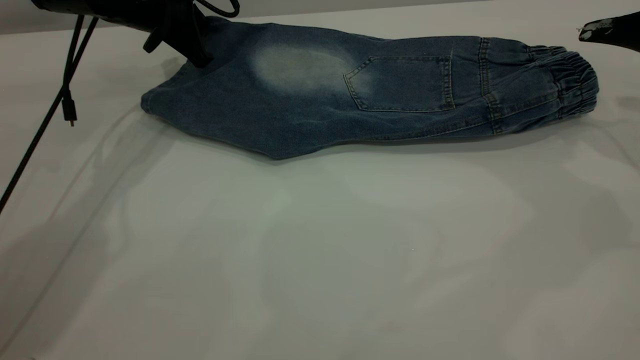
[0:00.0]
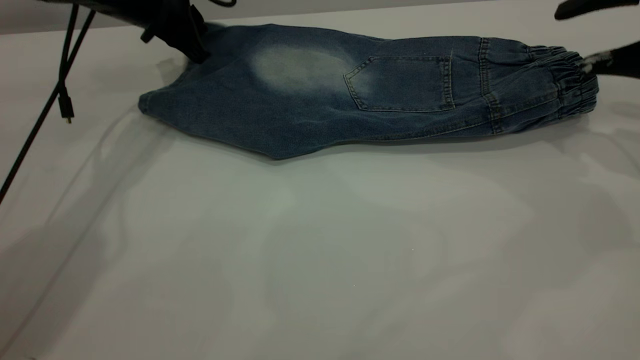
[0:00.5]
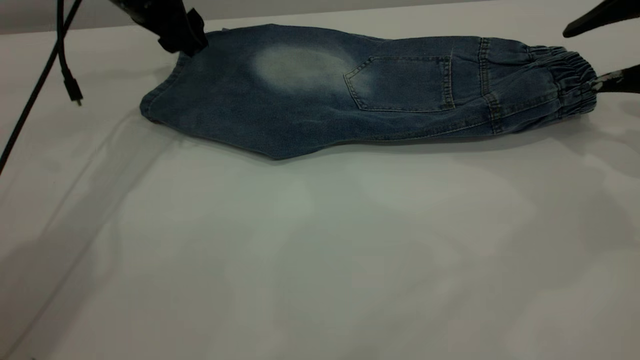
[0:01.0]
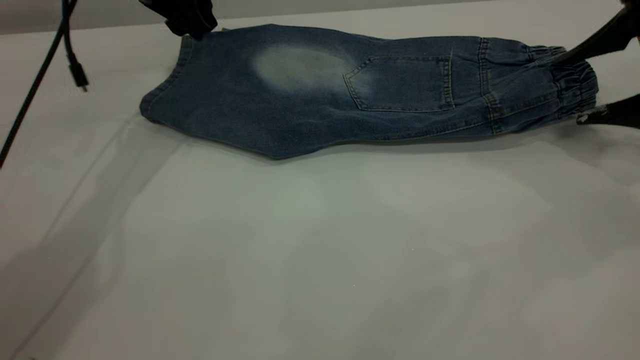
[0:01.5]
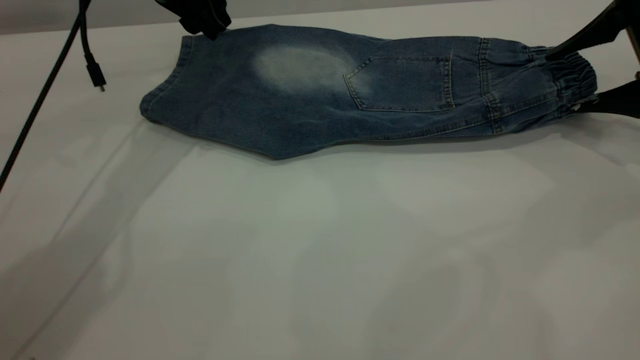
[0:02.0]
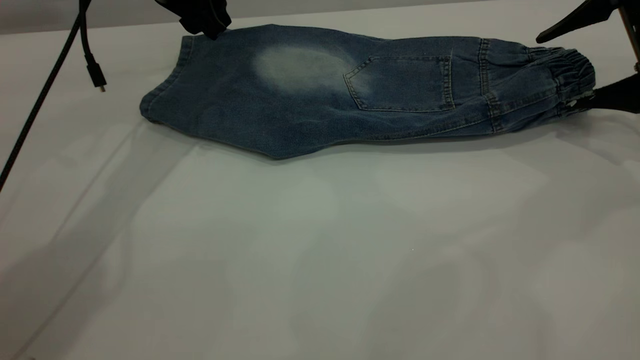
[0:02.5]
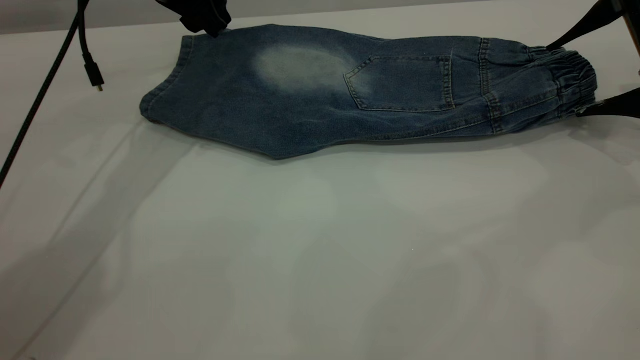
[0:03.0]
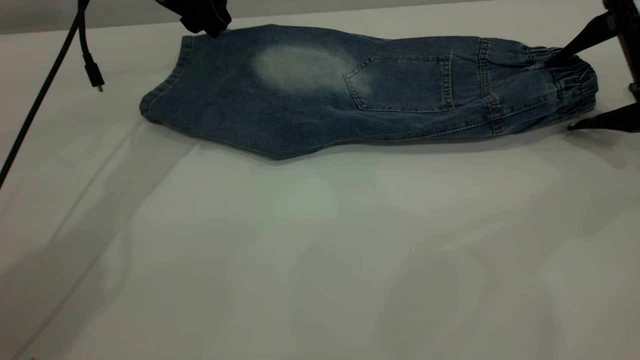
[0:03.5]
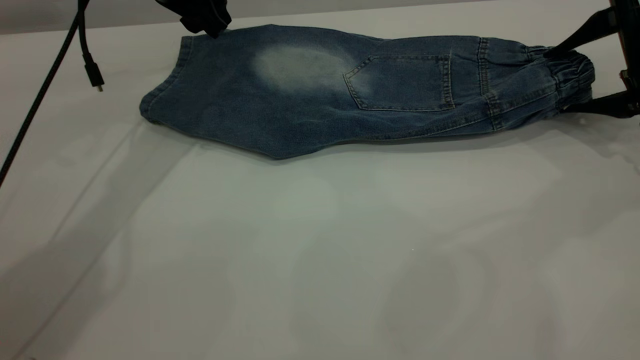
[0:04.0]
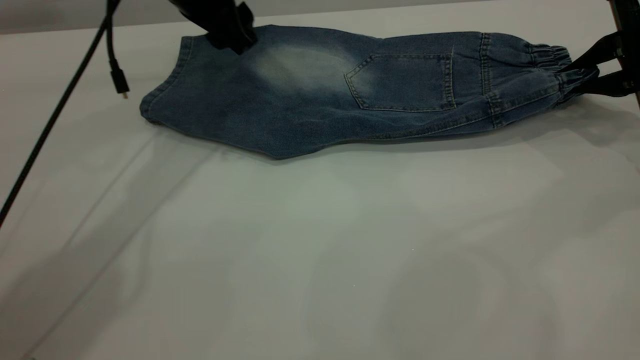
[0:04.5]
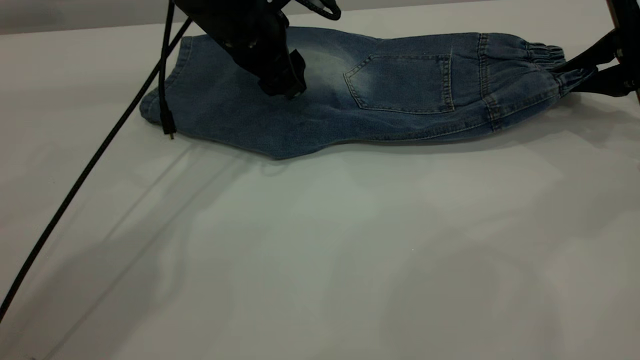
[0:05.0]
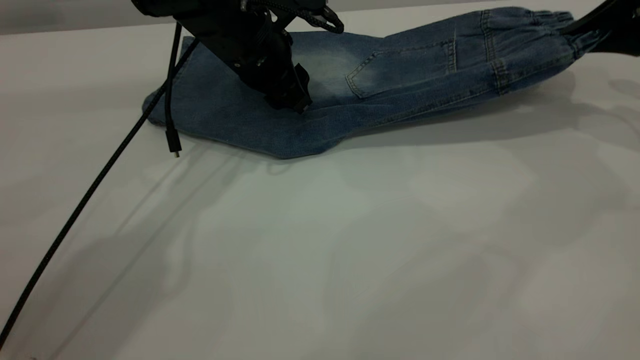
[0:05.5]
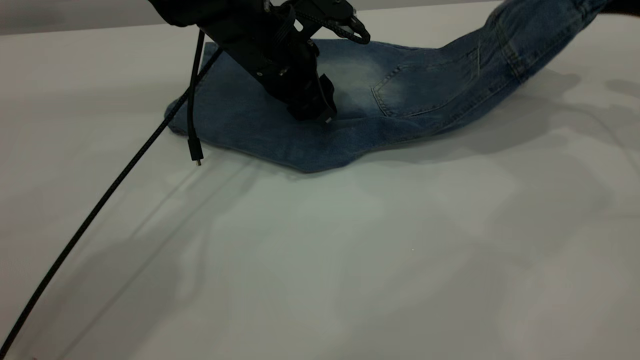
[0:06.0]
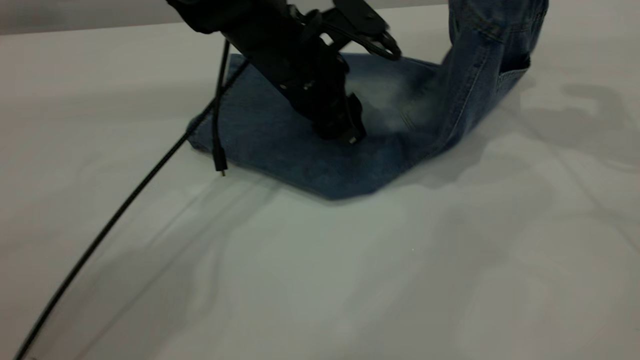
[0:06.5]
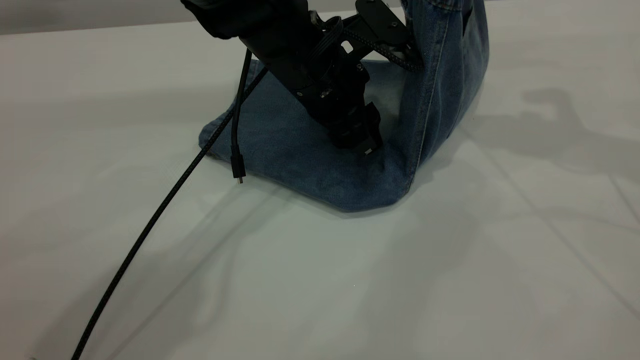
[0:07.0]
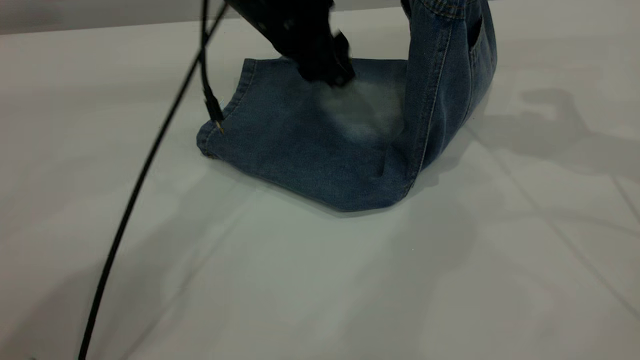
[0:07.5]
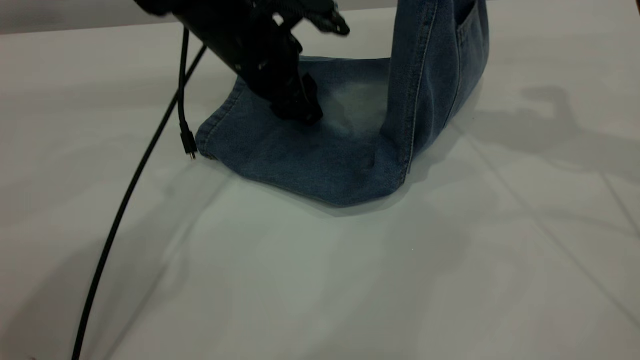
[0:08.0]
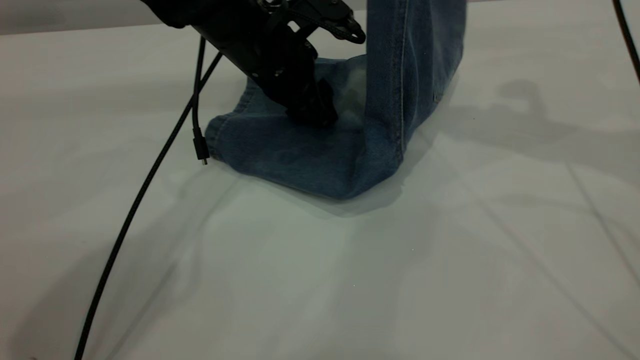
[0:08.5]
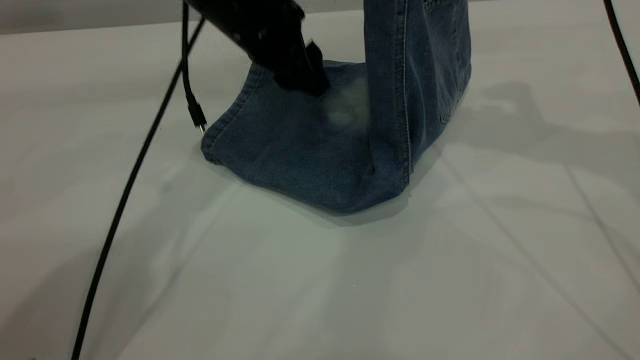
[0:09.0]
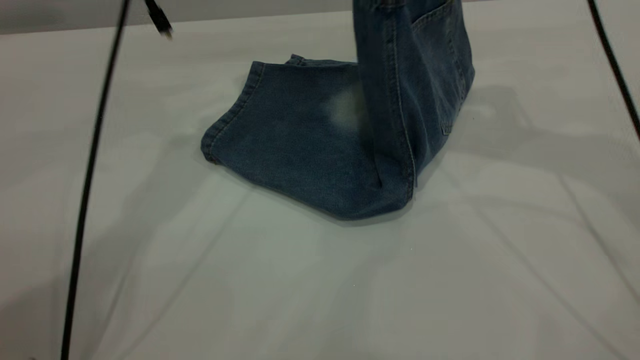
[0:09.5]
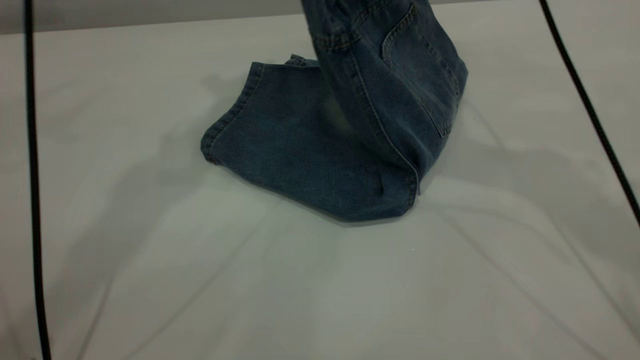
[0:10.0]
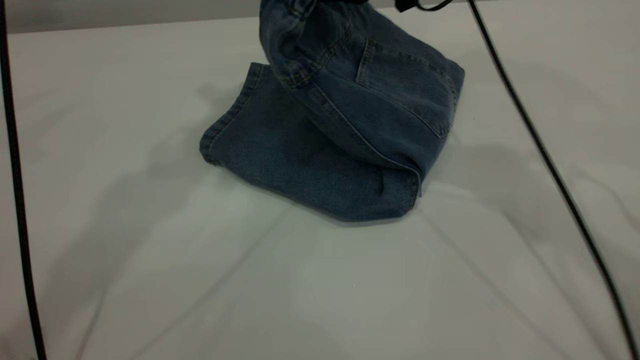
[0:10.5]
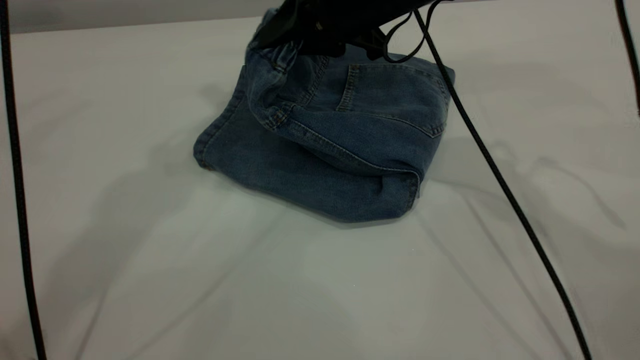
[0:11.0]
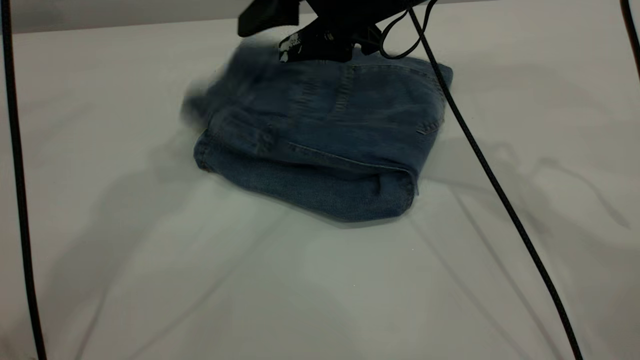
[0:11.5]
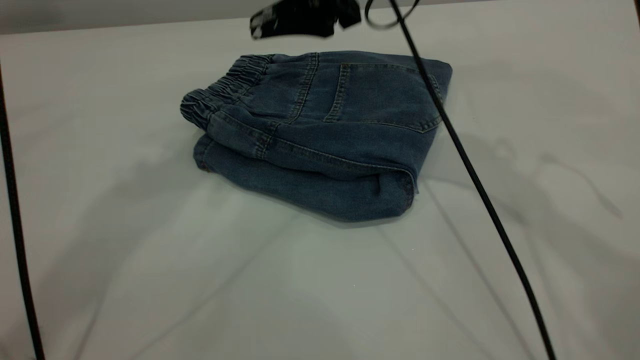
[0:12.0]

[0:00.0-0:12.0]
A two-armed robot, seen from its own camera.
0:00.0 to 0:02.0: The right gripper shifts approximately 5 cm downward. The left gripper is displaced upward by some 5 cm, and opens up.
0:02.0 to 0:04.0: The grippers move only a little.
0:04.0 to 0:06.0: The right gripper heads upward, covering about 10 cm, and closes its fingers. Meanwhile the left gripper heads to the right, downward and backward, covering some 15 cm.
0:06.0 to 0:08.0: The left gripper travels upward and back again, roughly 10 cm each way. The right gripper is displaced to the left and upward by about 10 cm.
0:08.0 to 0:10.0: The left gripper is displaced upward by approximately 30 cm, while the right gripper shifts roughly 10 cm to the left.
0:10.0 to 0:12.0: The right gripper shifts roughly 5 cm to the left, and opens.

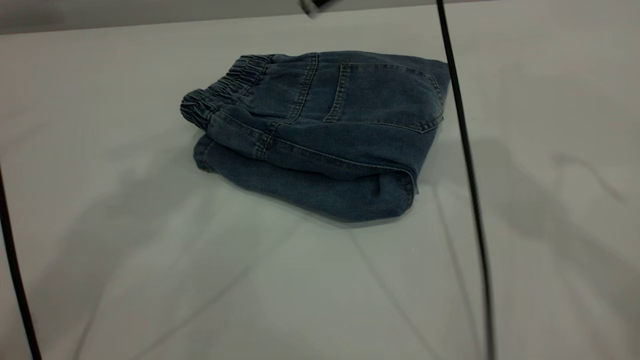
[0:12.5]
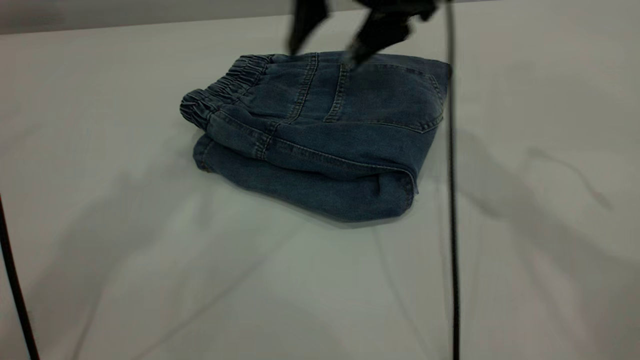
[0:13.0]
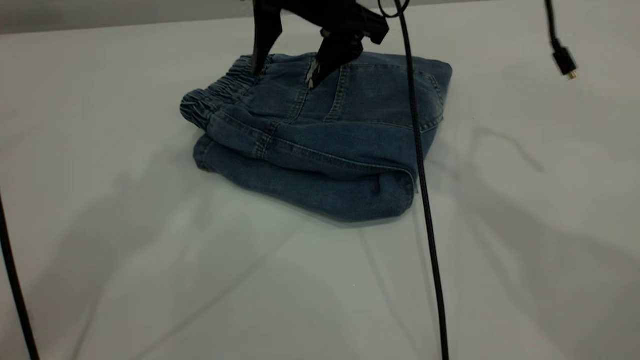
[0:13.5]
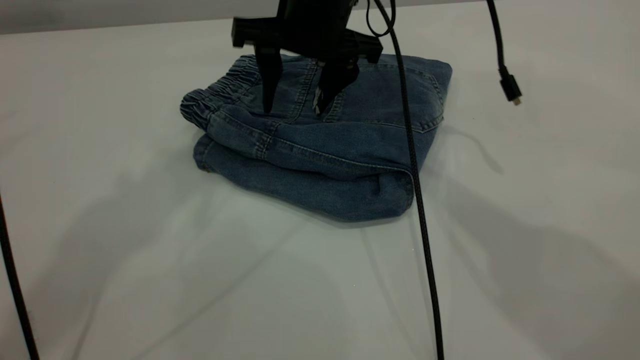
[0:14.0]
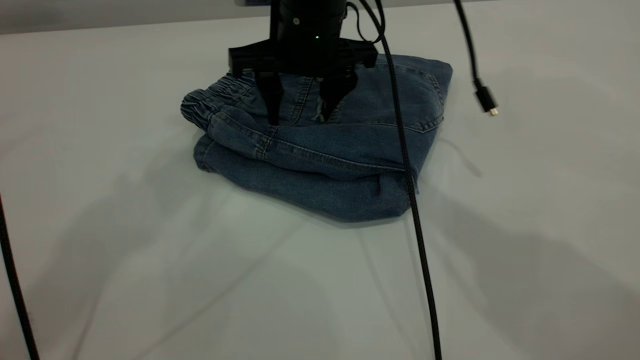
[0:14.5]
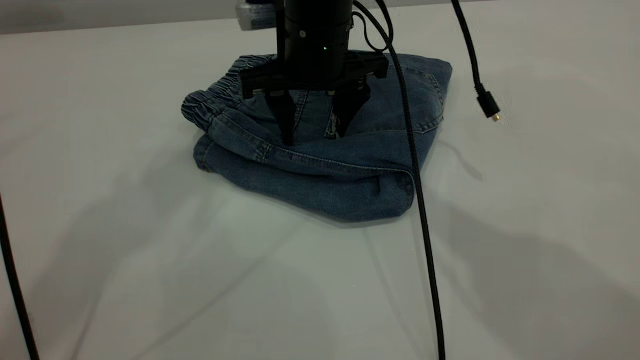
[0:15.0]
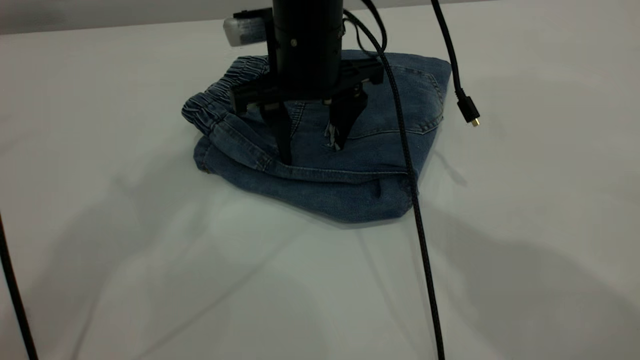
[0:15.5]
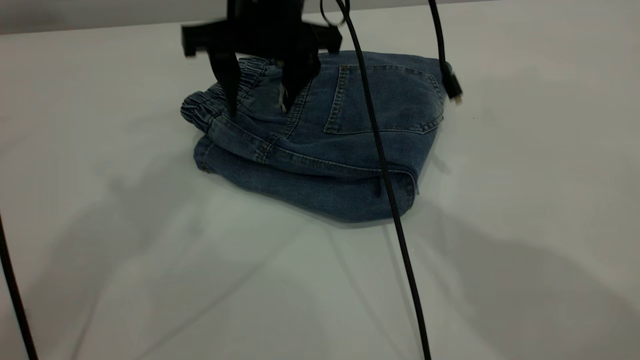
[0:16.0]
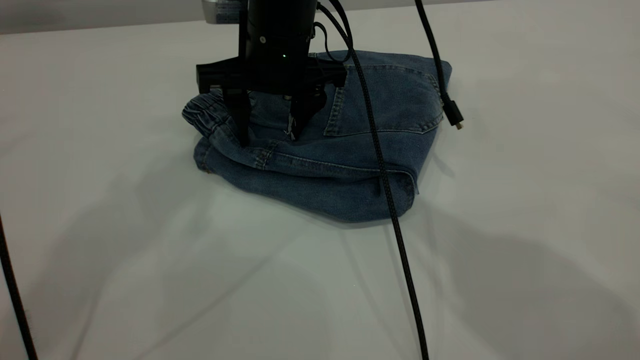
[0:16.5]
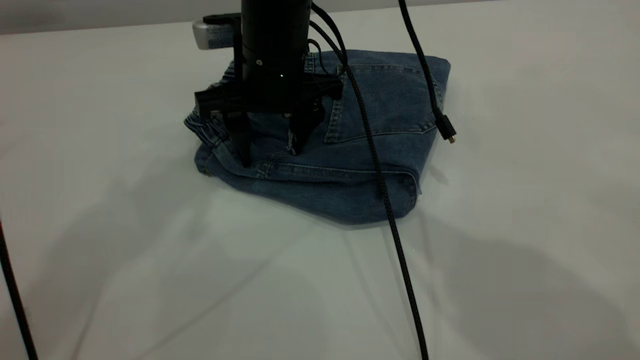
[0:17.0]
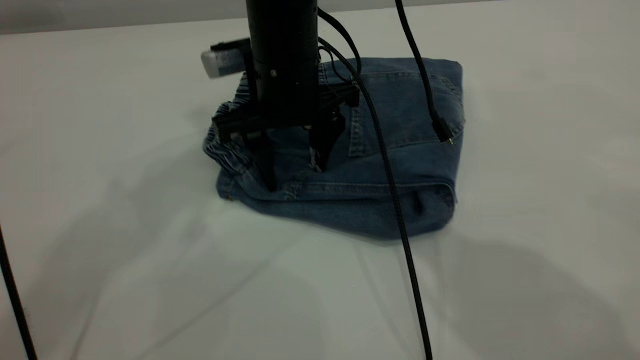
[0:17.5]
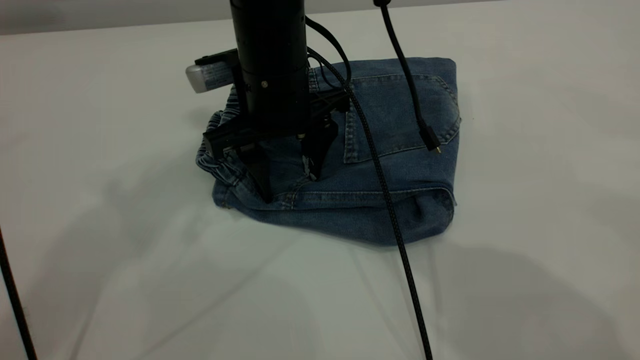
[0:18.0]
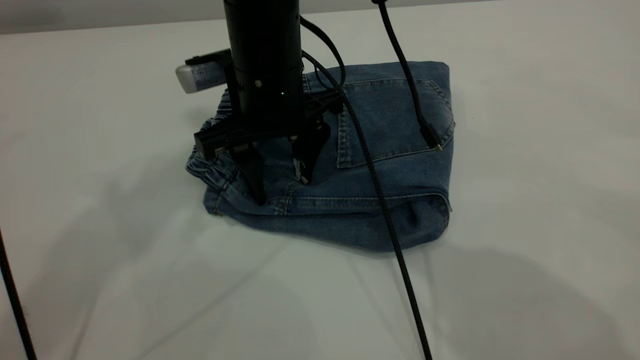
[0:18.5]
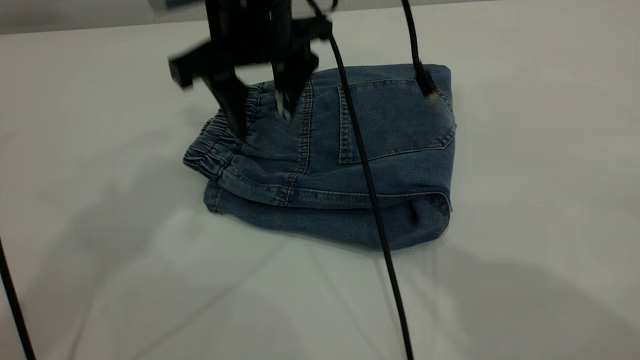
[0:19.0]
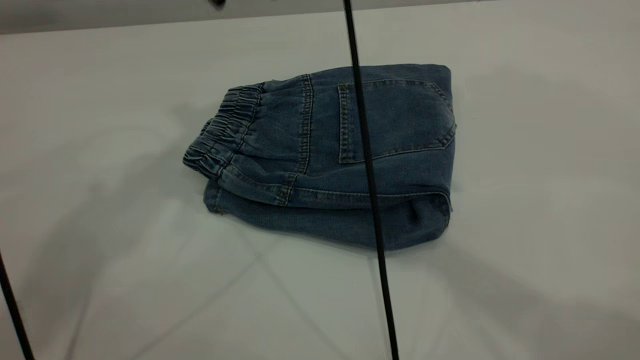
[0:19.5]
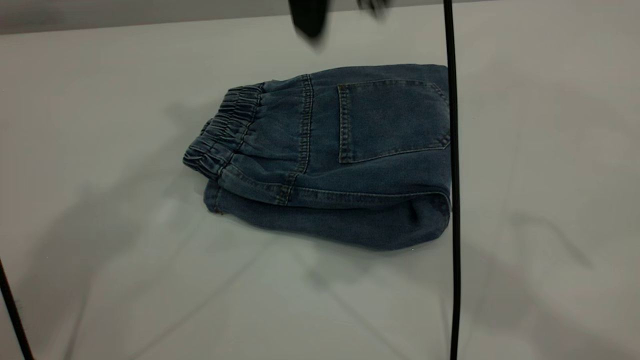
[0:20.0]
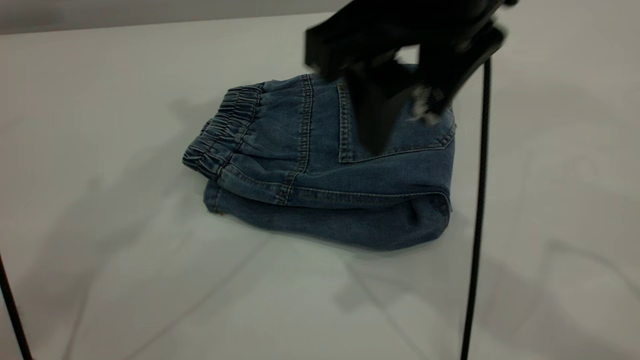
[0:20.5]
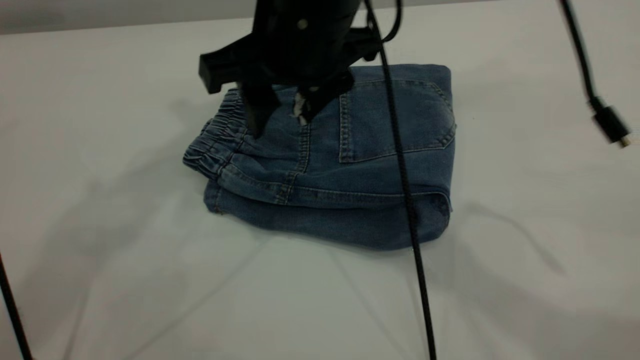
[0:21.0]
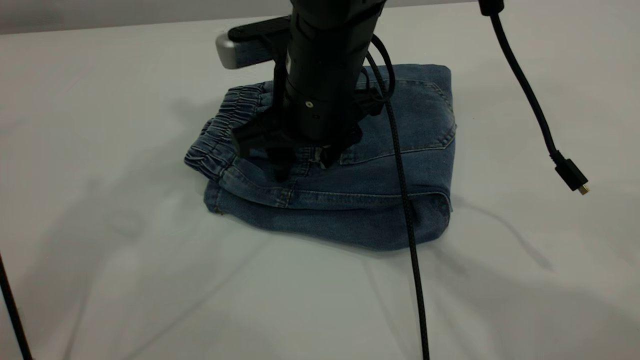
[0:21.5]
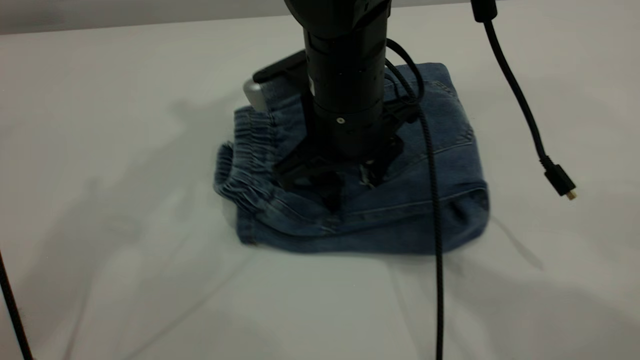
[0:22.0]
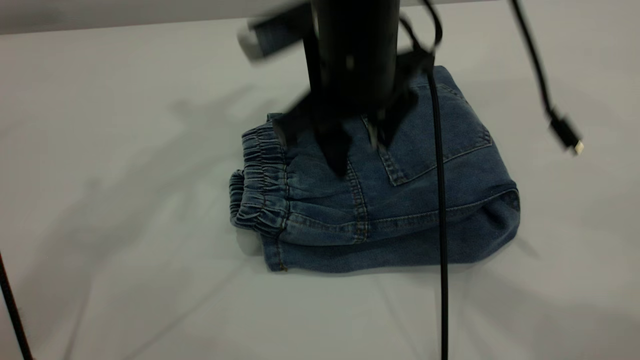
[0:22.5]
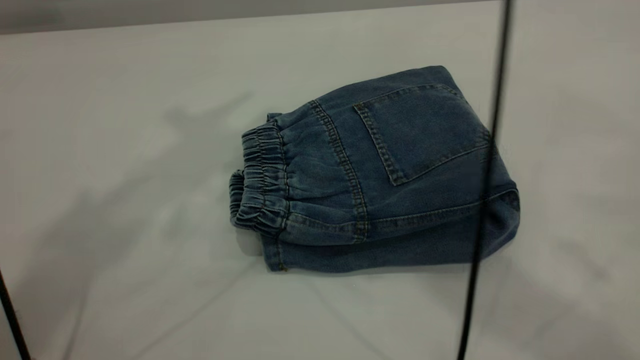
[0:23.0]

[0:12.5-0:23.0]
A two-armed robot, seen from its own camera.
0:12.5 to 0:14.5: The right gripper heads downward, to the left and forward, covering roughly 15 cm.
0:14.5 to 0:16.5: The grippers stay close to where they were, moving slightly.
0:16.5 to 0:19.0: The right gripper is displaced upward by approximately 5 cm.
0:19.0 to 0:21.0: The right gripper moves about 15 cm upward and comes back.
0:21.0 to 0:23.0: The right gripper goes roughly 20 cm upward and to the right.
